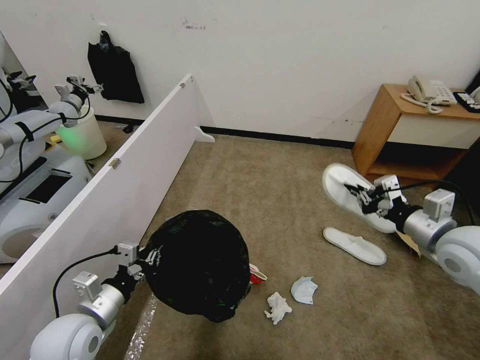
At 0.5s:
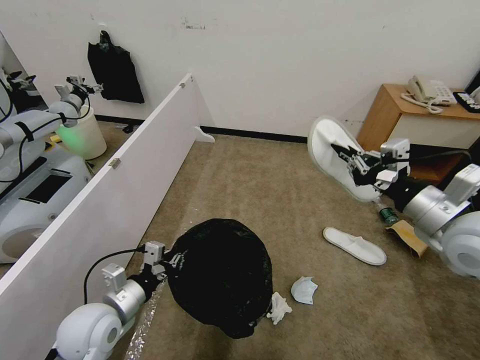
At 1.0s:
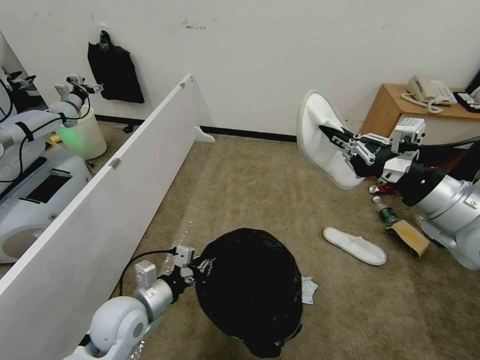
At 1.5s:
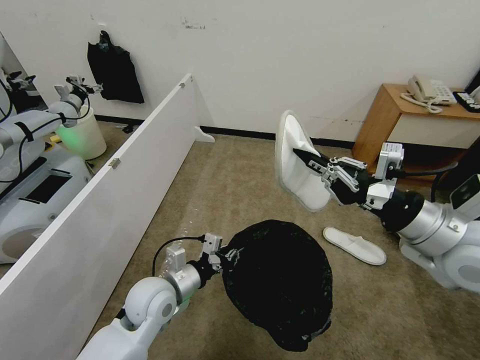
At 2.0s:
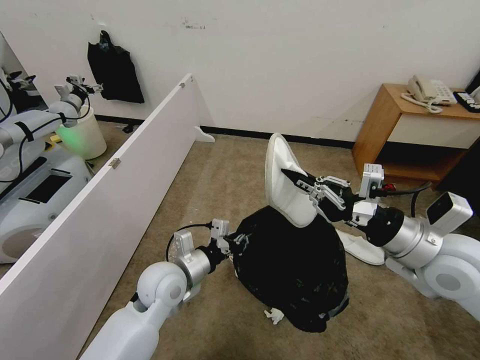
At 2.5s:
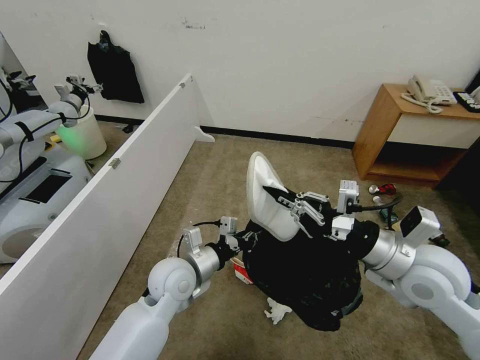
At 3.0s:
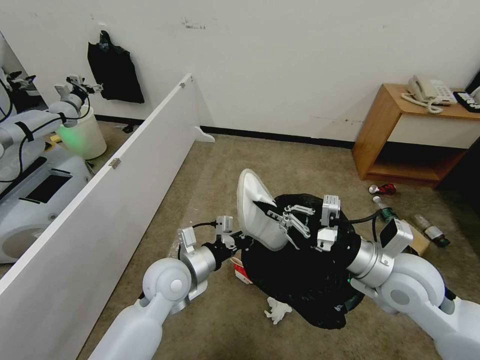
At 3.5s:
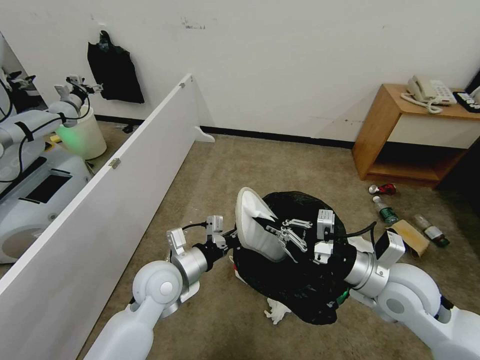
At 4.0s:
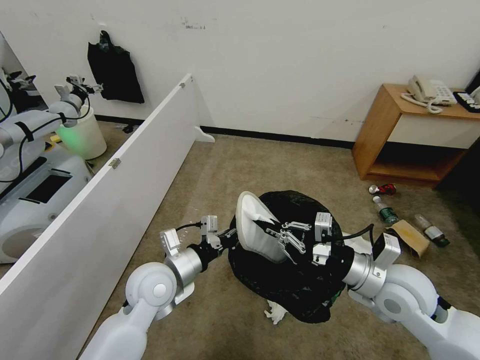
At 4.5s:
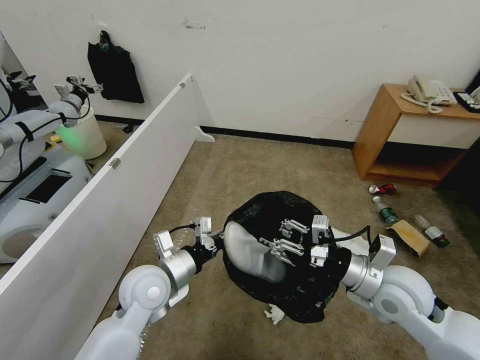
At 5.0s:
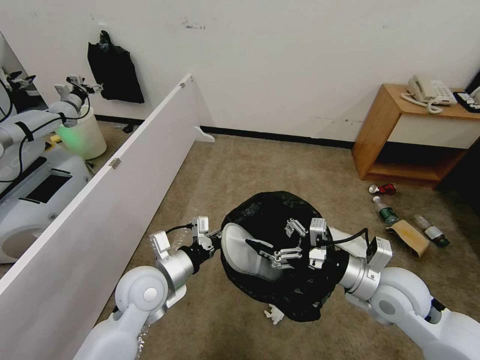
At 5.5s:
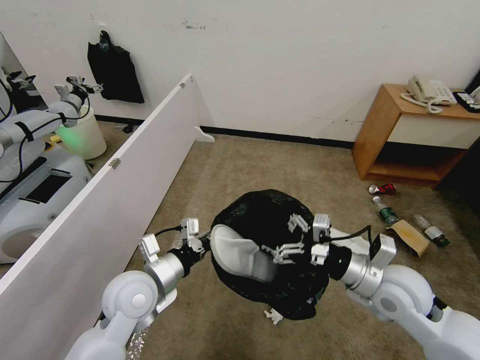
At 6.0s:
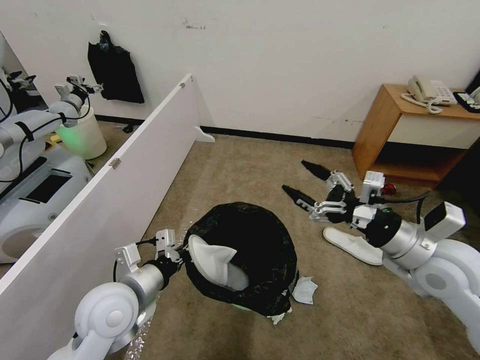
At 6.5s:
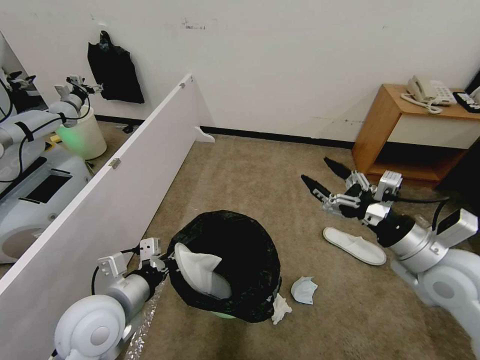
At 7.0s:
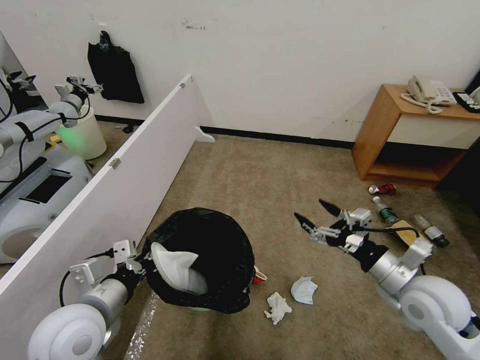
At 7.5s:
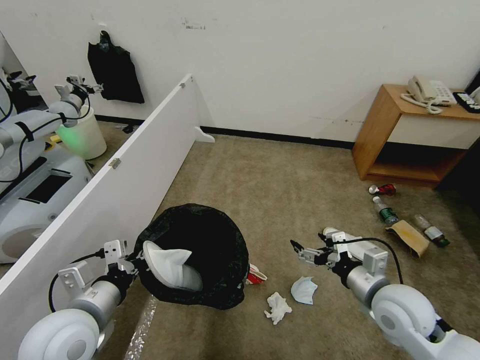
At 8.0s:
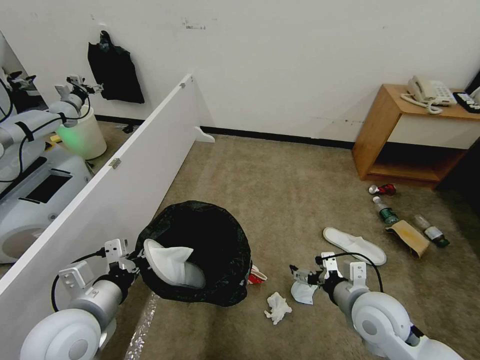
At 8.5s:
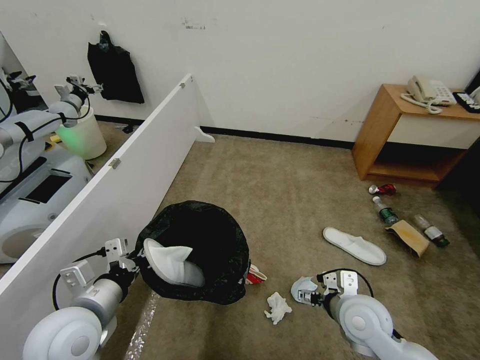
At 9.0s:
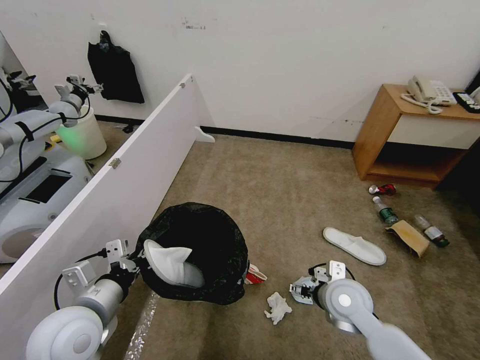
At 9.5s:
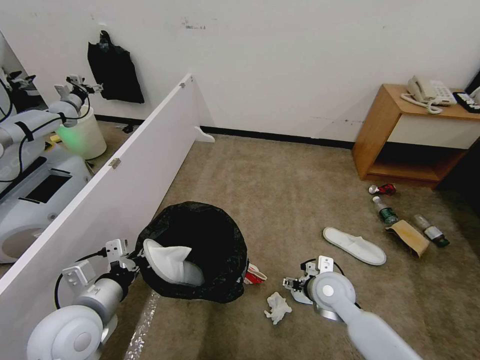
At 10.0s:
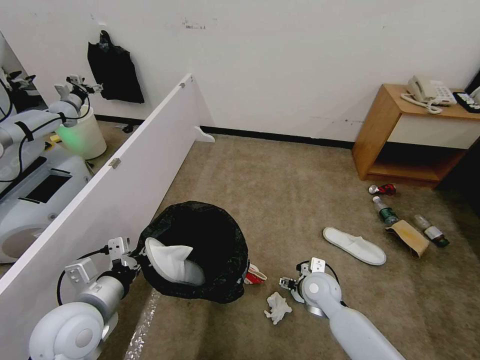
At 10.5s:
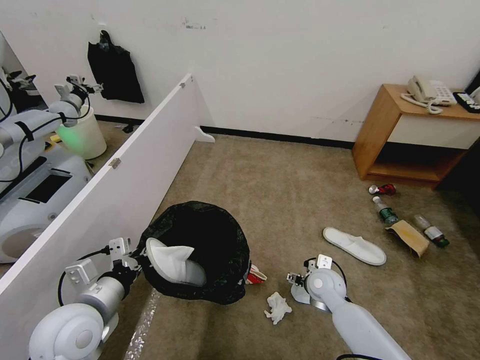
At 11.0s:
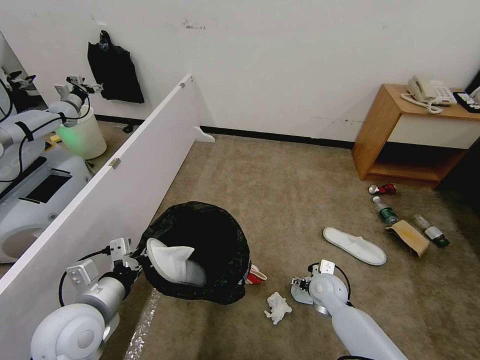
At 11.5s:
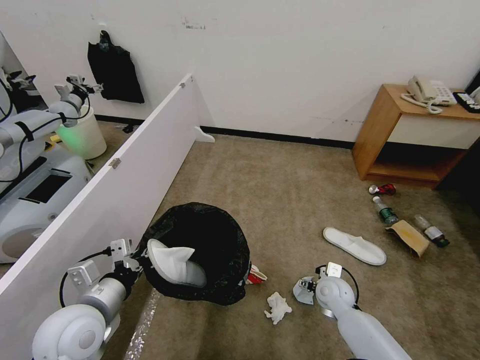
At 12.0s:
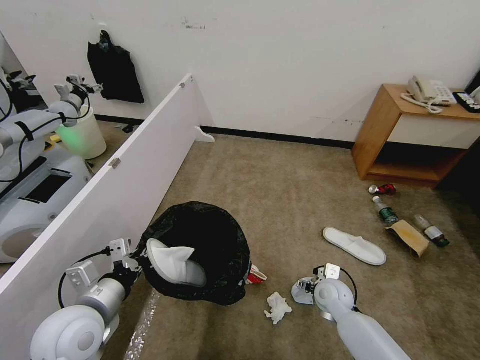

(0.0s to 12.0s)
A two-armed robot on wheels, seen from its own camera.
Task of the whole recording: Pick up the trash bin, then pick up the garbage from the floor and place it into the trash bin.
0.0s - 2.0s: The left gripper heads to the right and forward, covering some 20 cm, while the right gripper travels to the left by approximately 10 cm, and goes upward and returns, approximately 10 cm each way.
2.0s - 4.0s: The right gripper shifts approximately 10 cm downward.
4.0s - 6.0s: The right gripper goes approximately 5 cm upward, and opens, while the left gripper travels backward and to the left by about 5 cm.
6.0s - 8.0s: The left gripper ends up about 5 cm from where it was. Meanwhile the right gripper shifts some 15 cm downward and to the left.
8.0s - 10.0s: The right gripper travels downward, forward and to the left by approximately 15 cm.
10.0s - 12.0s: The right gripper changes place by approximately 5 cm.

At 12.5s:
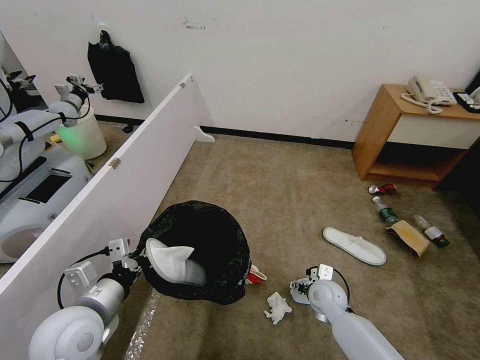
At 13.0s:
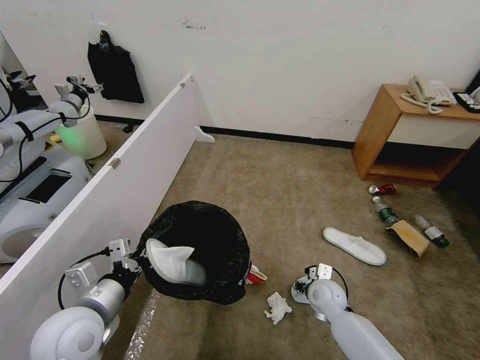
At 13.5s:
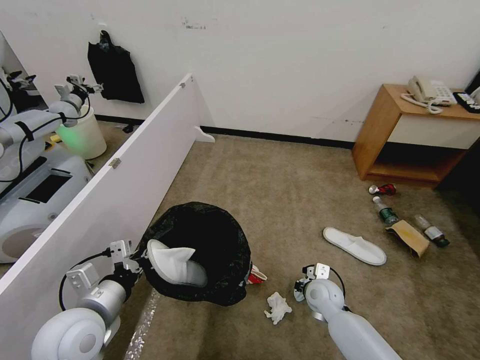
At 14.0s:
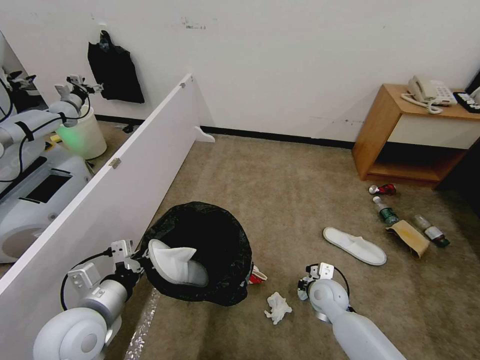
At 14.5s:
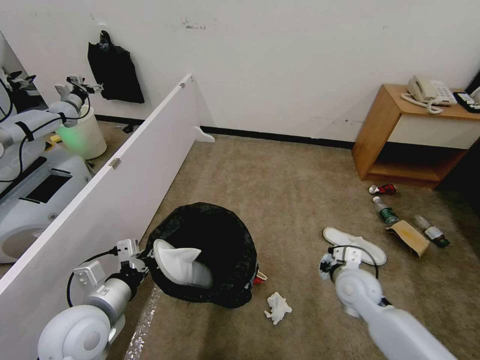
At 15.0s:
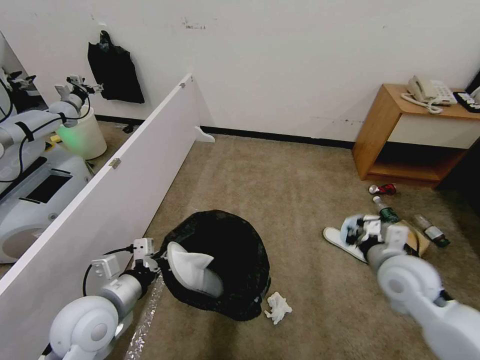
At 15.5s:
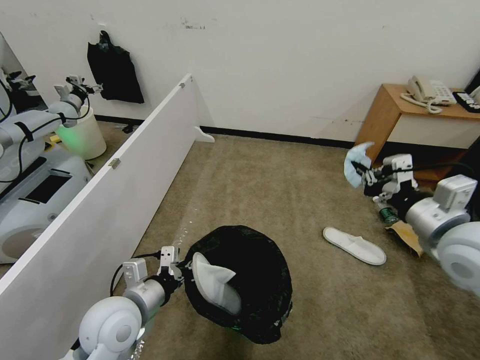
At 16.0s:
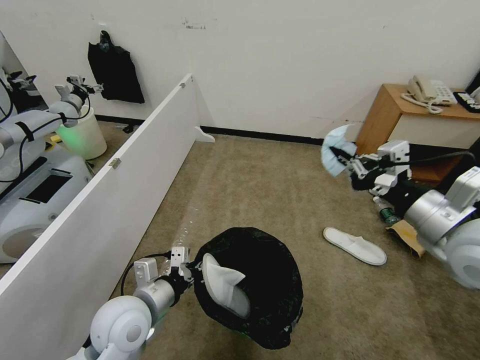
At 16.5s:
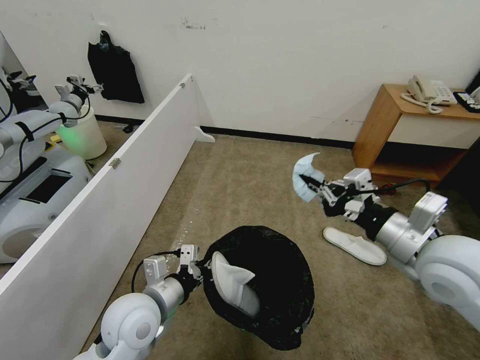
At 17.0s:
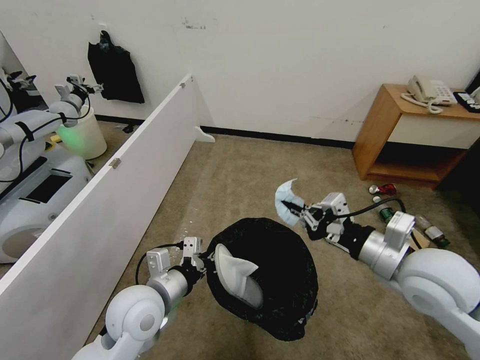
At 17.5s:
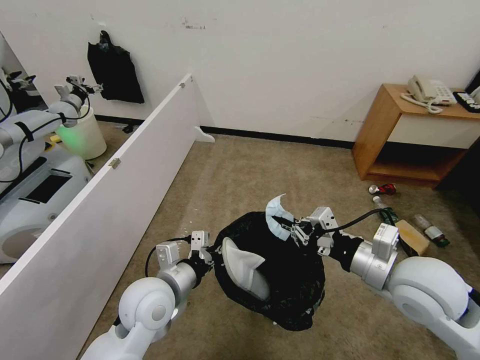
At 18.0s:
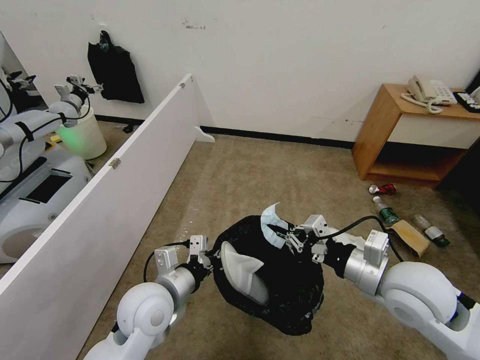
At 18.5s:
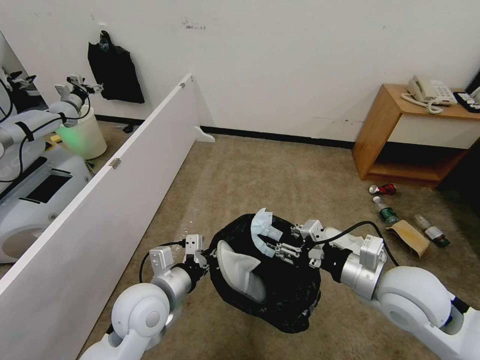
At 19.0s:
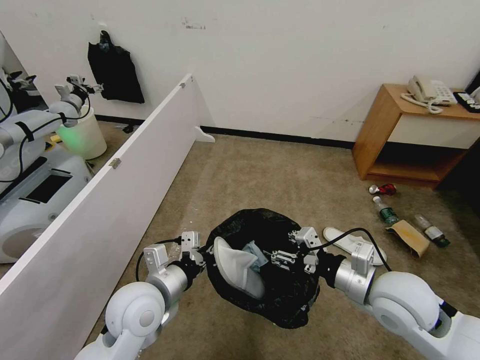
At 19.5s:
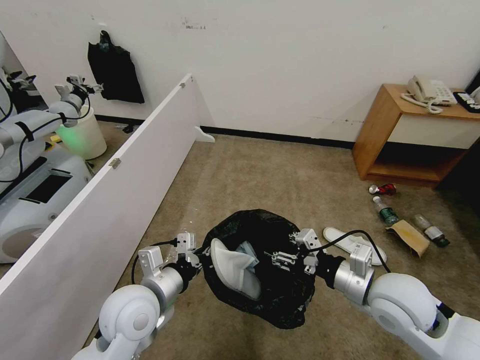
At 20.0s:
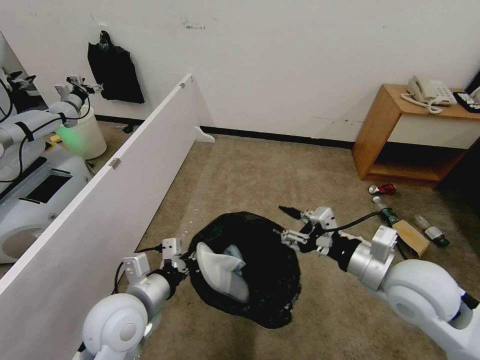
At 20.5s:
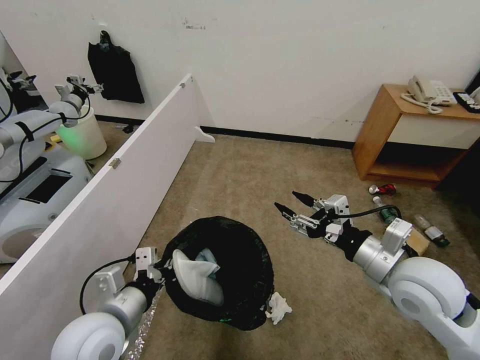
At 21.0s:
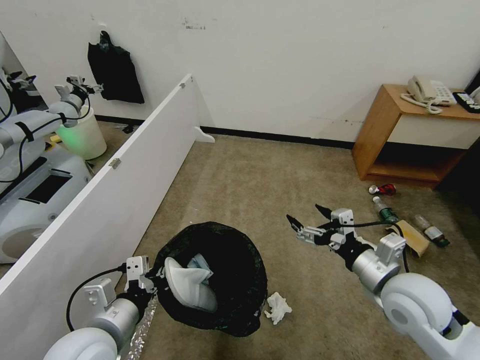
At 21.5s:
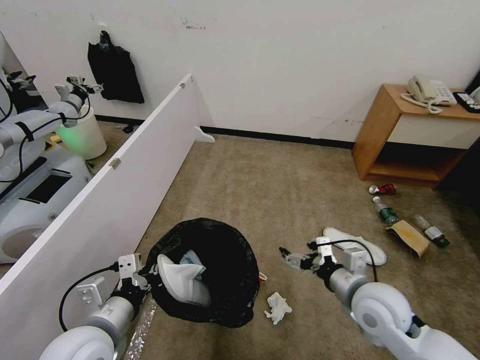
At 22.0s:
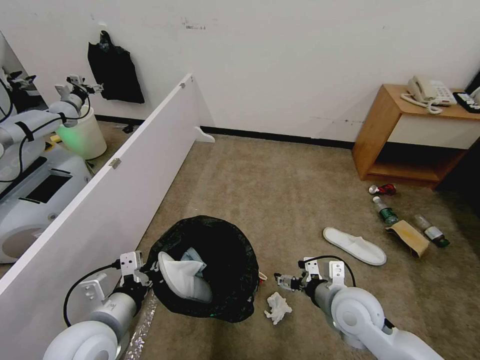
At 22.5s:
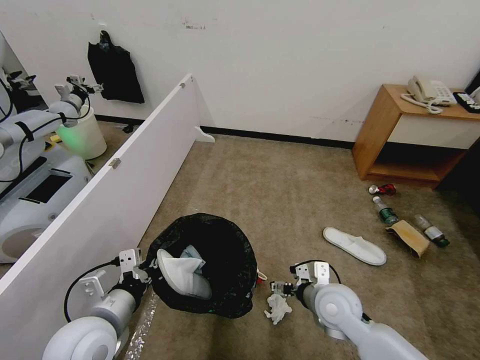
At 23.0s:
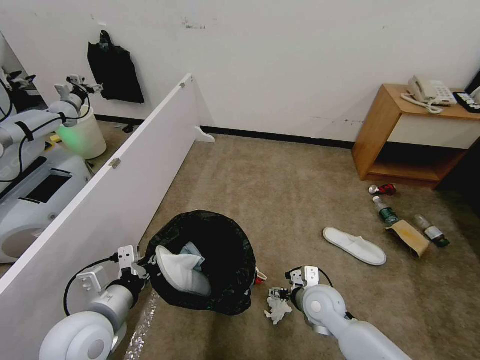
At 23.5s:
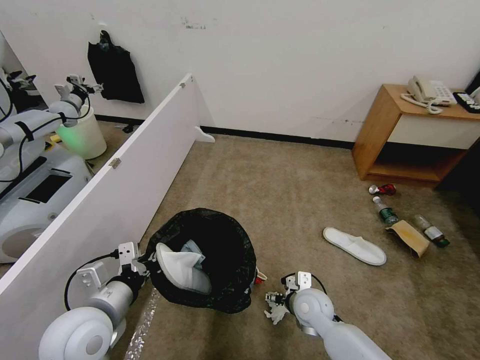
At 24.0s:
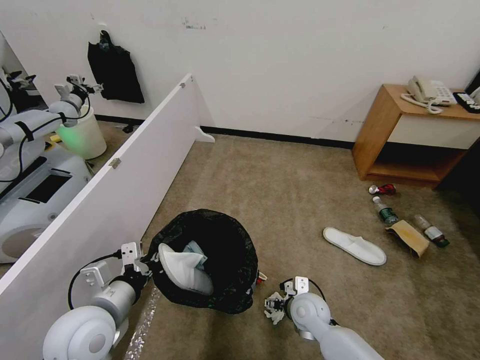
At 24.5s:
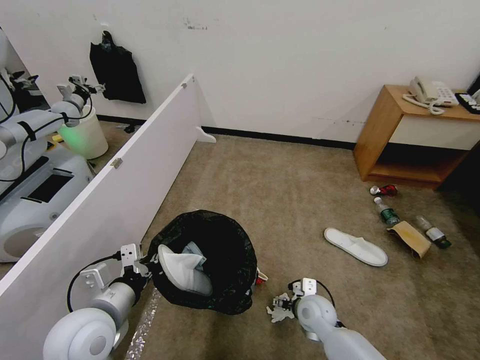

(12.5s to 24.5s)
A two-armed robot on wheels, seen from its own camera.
Task of the whole recording: Pick up the trash bin, then pick up the garbage from the floor and place it into the trash bin.
12.5s - 14.5s: The right gripper goes approximately 10 cm upward, and closes.
14.5s - 16.5s: The right gripper is displaced upward by roughly 25 cm. The left gripper travels to the right by about 10 cm.
16.5s - 18.5s: The right gripper shifts about 10 cm downward, and opens its fingers.
18.5s - 20.5s: The left gripper moves to the left and backward, some 10 cm.
20.5s - 22.5s: The right gripper goes approximately 15 cm downward and to the left, and opens its fingers.
22.5s - 24.5s: The right gripper goes about 15 cm downward.

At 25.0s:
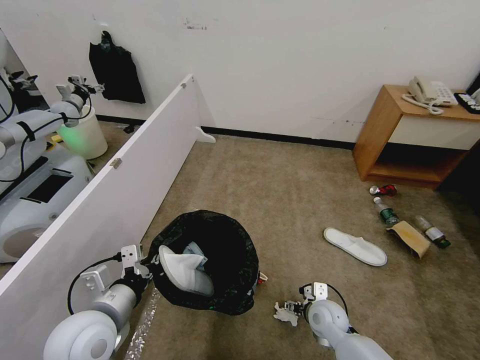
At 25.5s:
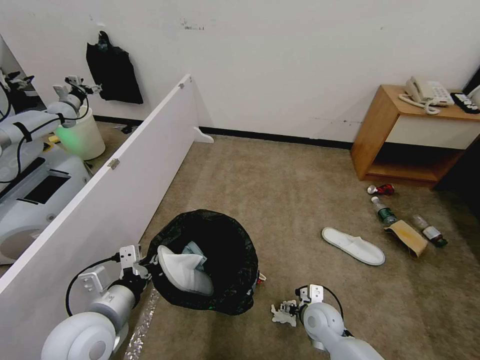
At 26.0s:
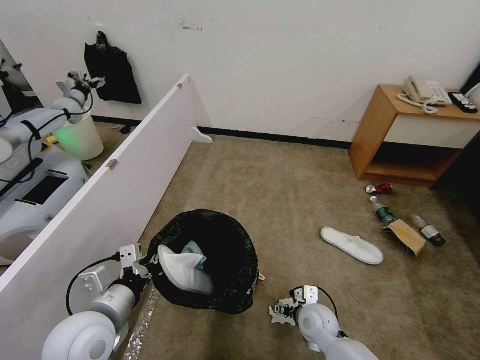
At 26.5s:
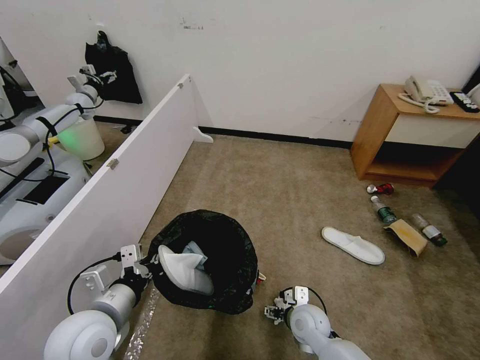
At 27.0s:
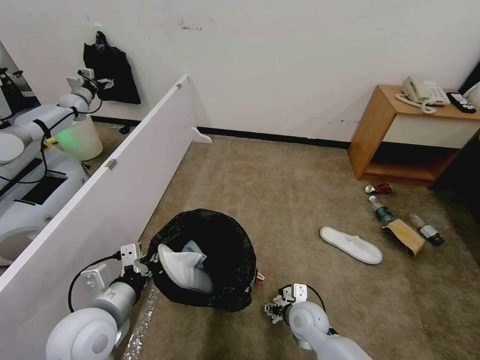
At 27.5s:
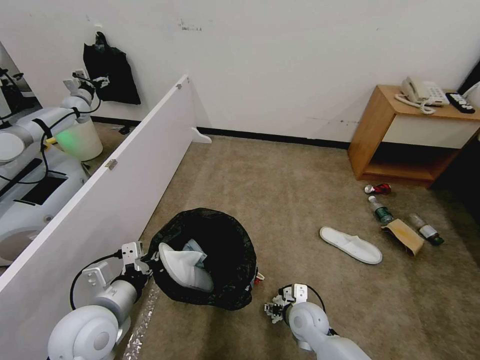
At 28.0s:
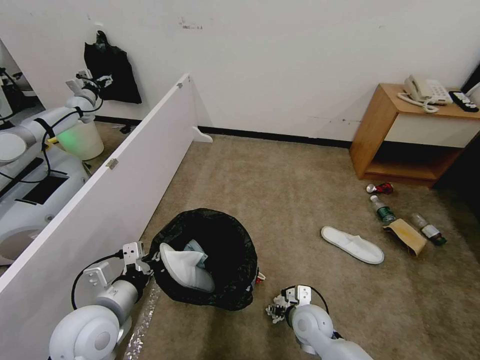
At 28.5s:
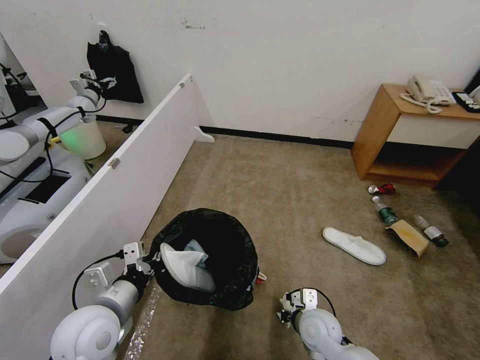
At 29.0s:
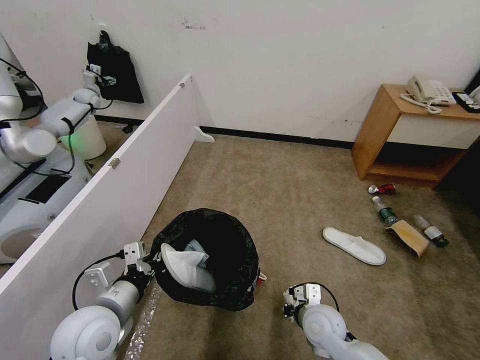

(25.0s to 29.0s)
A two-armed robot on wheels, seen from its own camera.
Task of the whole recording: Pick up the trash bin, then pick up the garbage from the floor and place it into the trash bin.
25.0s - 27.0s: The right gripper is displaced to the left by roughly 5 cm.
27.0s - 29.0s: The right gripper closes up.
